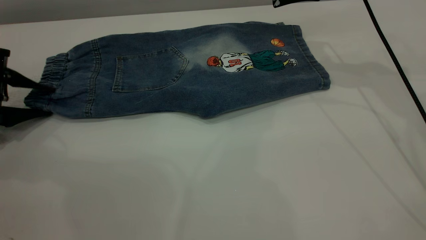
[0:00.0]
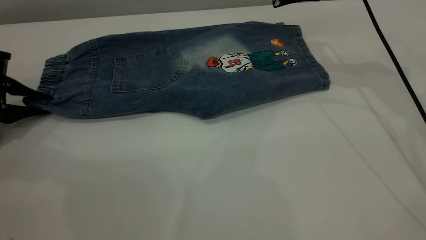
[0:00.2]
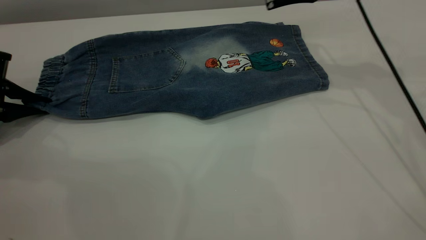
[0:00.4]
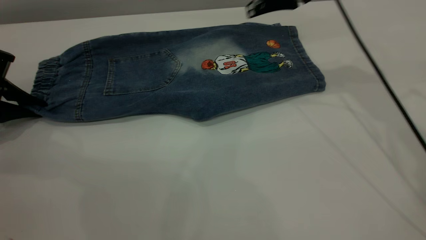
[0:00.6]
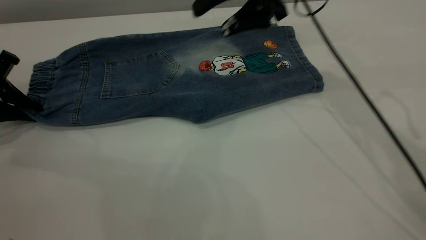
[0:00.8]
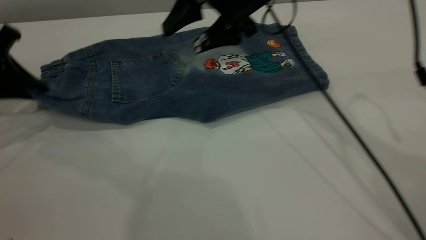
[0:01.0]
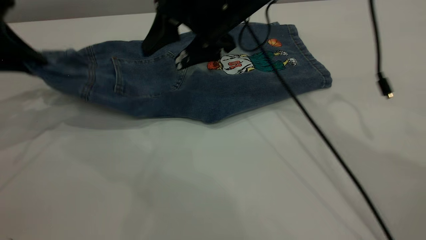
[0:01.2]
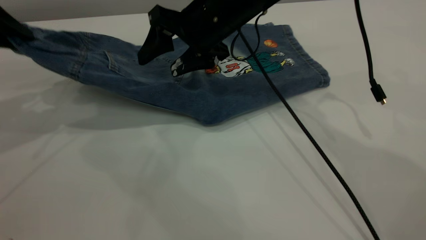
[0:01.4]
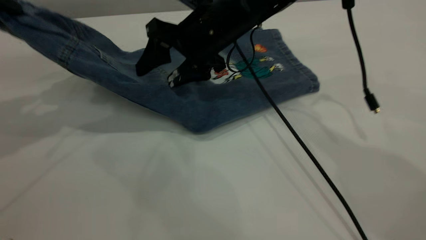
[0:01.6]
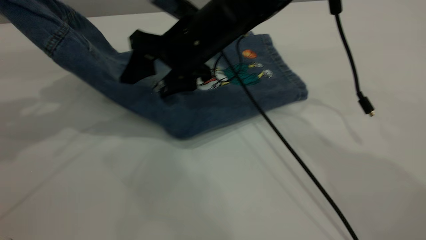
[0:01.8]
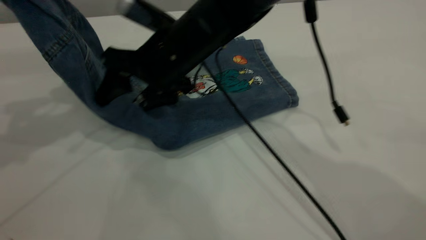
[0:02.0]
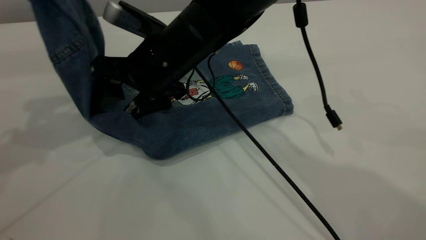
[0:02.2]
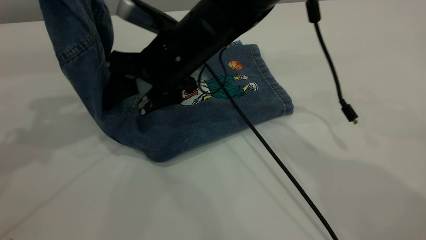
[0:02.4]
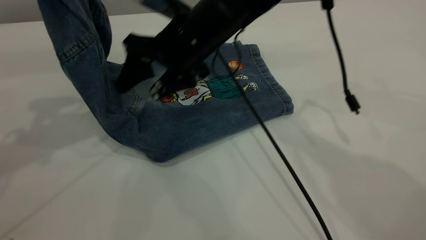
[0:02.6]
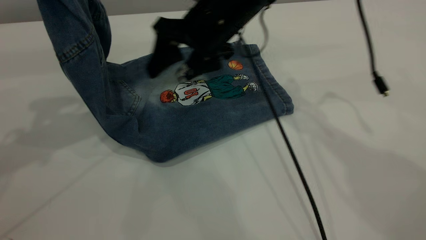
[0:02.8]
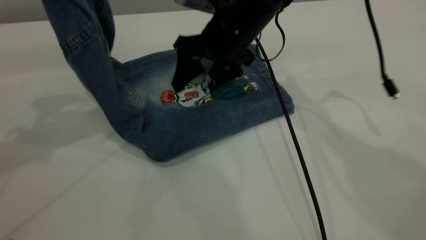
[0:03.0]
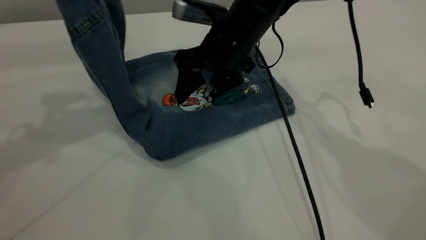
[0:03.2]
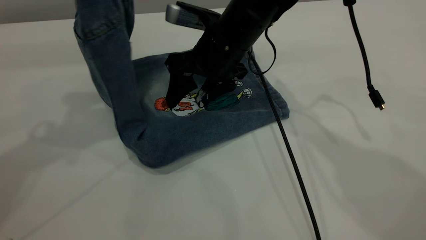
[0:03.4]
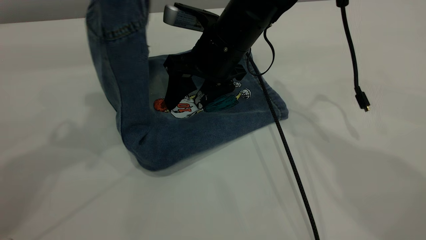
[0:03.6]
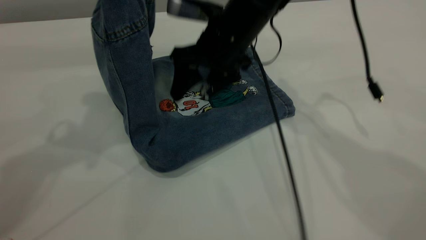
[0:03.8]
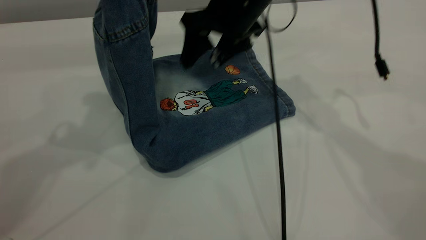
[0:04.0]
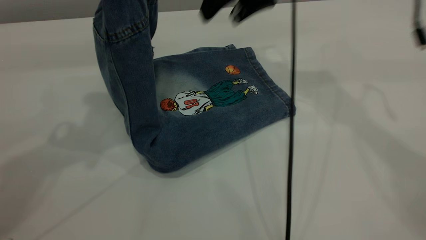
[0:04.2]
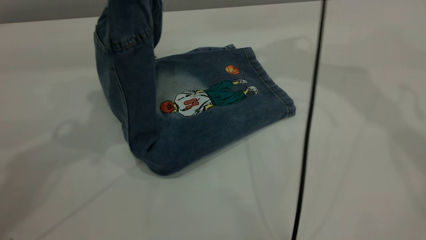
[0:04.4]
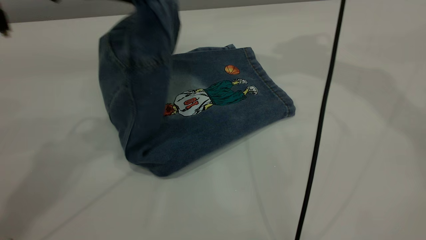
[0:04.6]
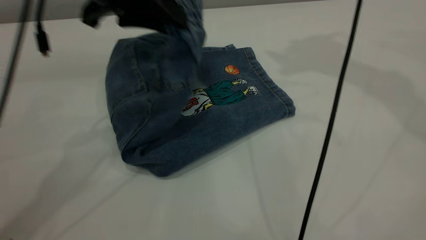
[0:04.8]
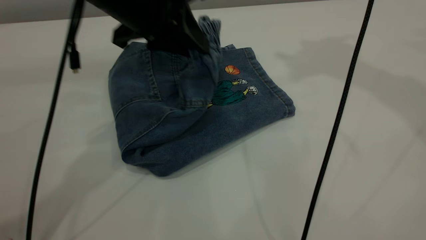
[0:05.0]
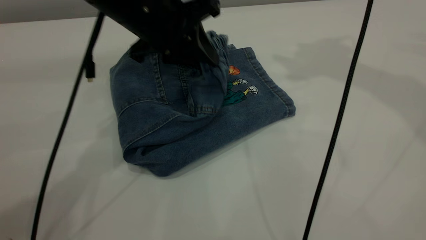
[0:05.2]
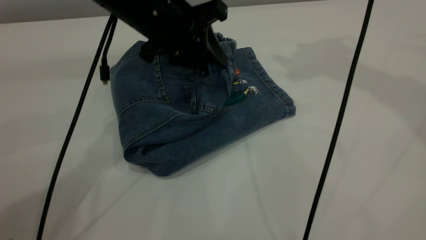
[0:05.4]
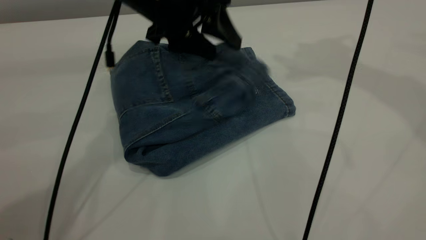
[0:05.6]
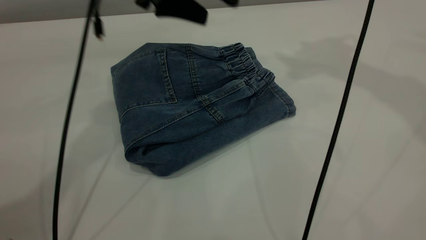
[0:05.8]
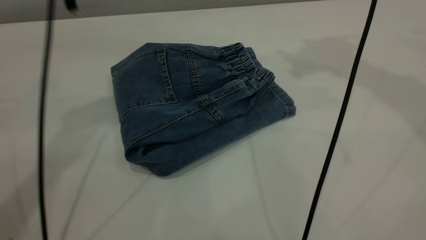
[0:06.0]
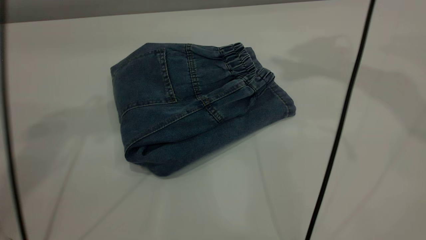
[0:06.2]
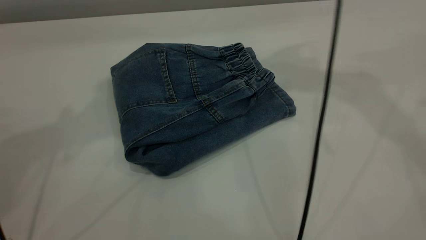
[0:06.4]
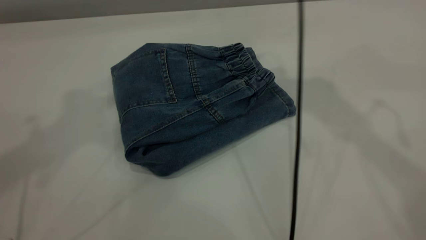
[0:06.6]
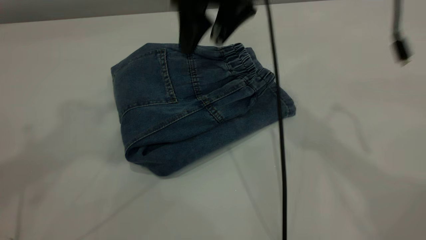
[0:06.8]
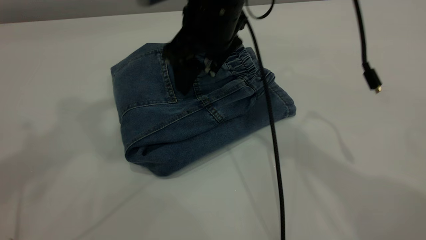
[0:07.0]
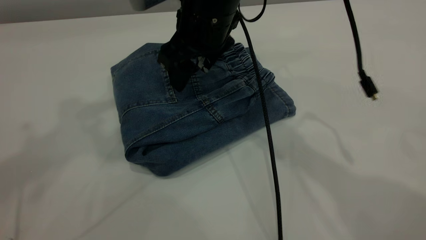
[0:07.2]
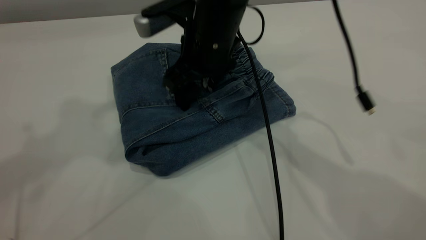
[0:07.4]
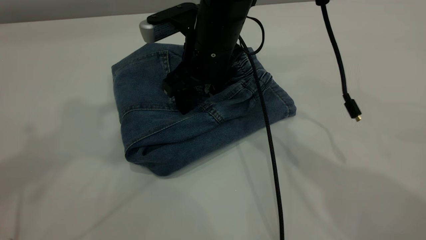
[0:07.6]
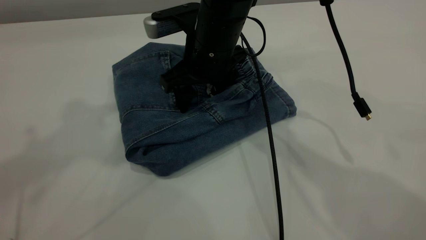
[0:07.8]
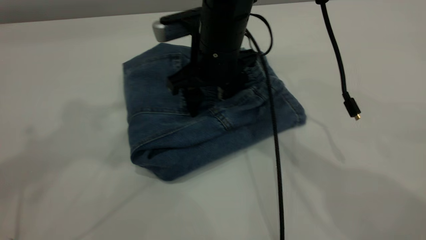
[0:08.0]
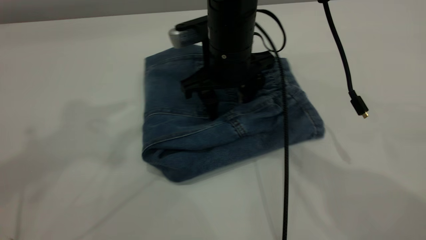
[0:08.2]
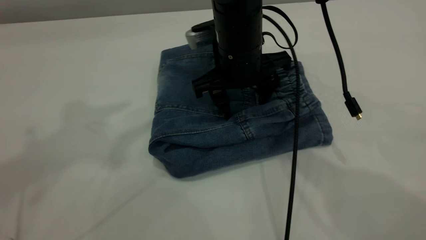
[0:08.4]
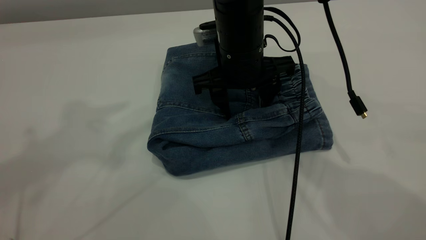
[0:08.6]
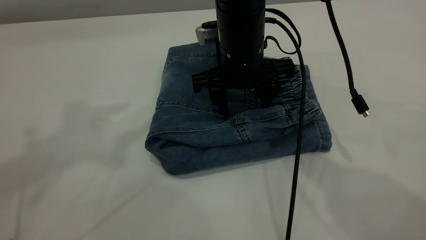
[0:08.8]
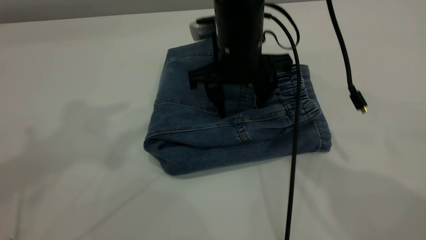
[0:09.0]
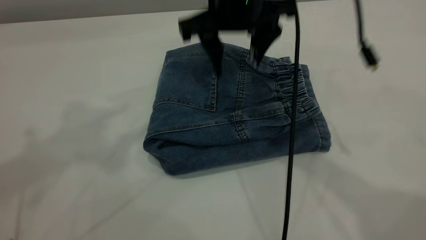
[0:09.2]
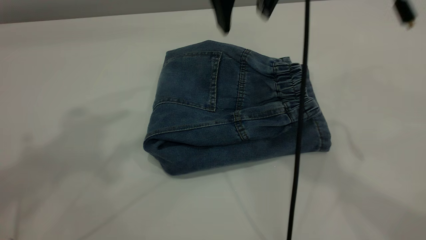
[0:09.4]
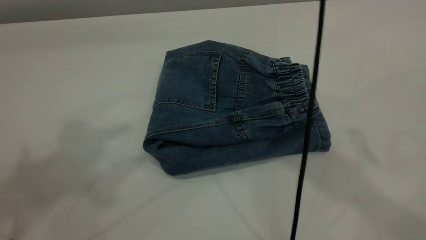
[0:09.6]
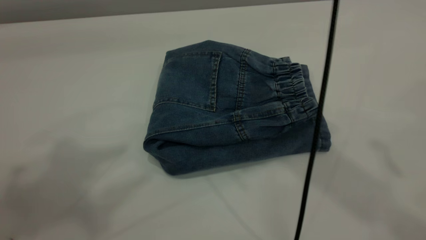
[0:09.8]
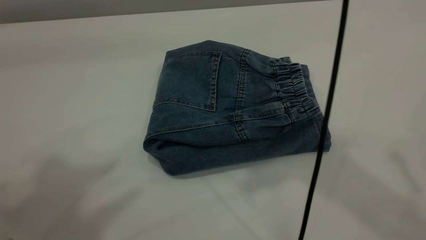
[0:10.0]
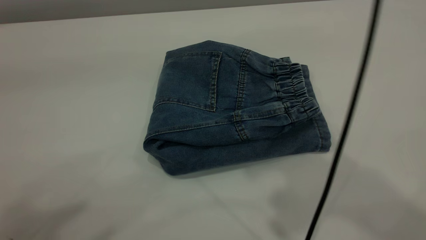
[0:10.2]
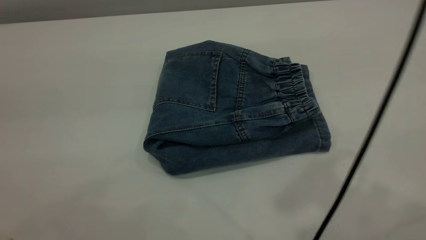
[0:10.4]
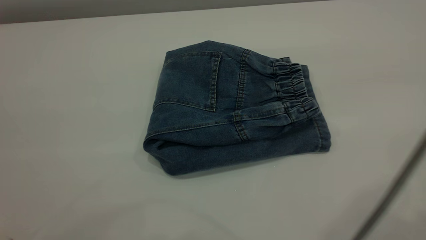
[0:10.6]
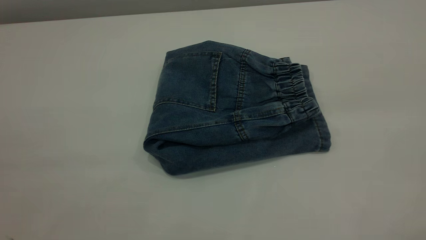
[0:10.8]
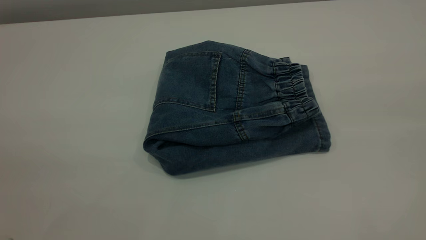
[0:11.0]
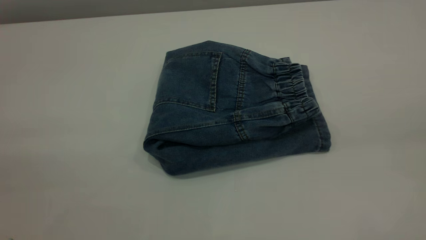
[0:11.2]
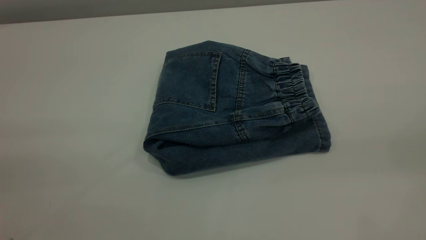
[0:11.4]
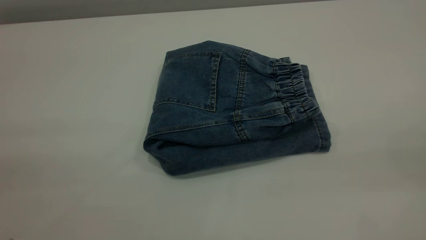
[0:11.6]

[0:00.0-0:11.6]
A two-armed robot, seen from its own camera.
Step, 0:00.0 to 0:06.0: Fold the pants from left to right.
0:00.0 to 0:01.4: The left gripper travels upward by about 20 cm, and closes its fingers. The right gripper heads to the left and downward, covering roughly 20 cm.
0:01.4 to 0:02.8: The right gripper moves about 5 cm to the left and comes back. Meanwhile the left gripper shifts roughly 10 cm to the right and upward.
0:02.8 to 0:04.4: The right gripper shifts approximately 20 cm upward and to the right. The left gripper goes about 10 cm to the right.
0:04.4 to 0:05.8: The right gripper moves upward and to the right, some 10 cm, while the left gripper is displaced to the right and forward by roughly 10 cm, and opens.
0:05.8 to 0:07.2: The right gripper goes some 30 cm downward and to the left. Meanwhile the left gripper shifts some 25 cm upward, to the left and backward.
0:07.2 to 0:08.8: The right gripper changes place by some 5 cm.
0:08.8 to 0:10.2: The left gripper travels backward by approximately 15 cm, while the right gripper shifts roughly 30 cm upward and backward.
0:10.2 to 0:11.6: The right gripper goes approximately 25 cm backward and to the right.

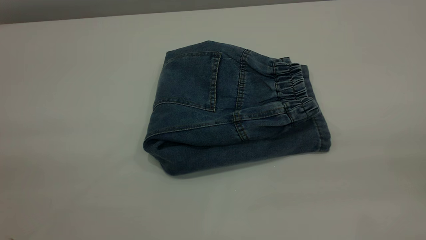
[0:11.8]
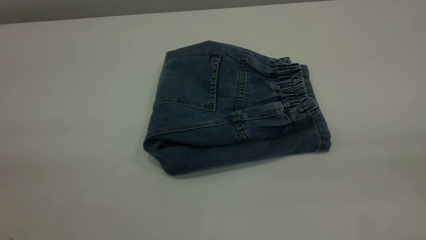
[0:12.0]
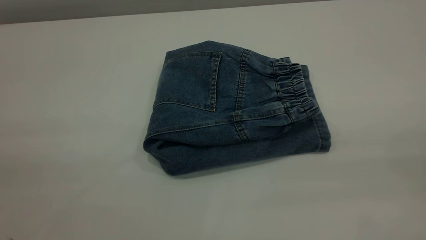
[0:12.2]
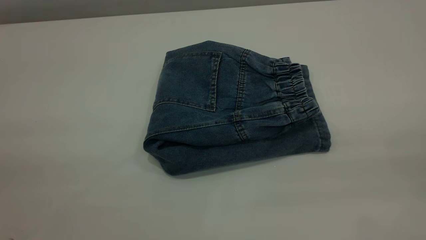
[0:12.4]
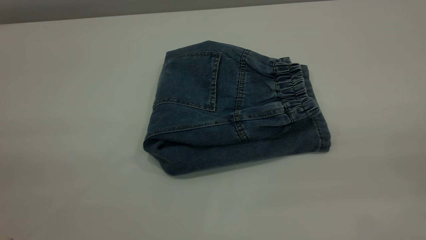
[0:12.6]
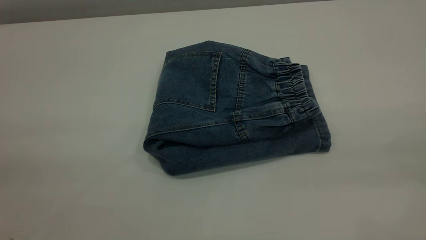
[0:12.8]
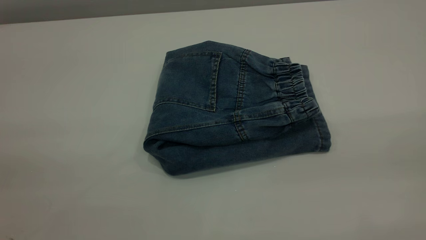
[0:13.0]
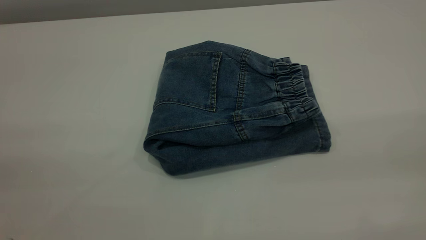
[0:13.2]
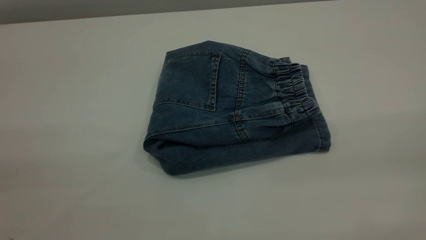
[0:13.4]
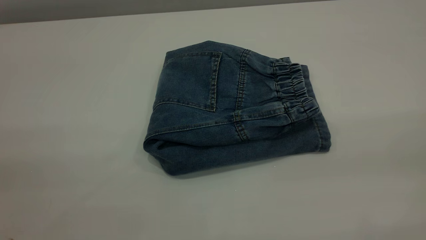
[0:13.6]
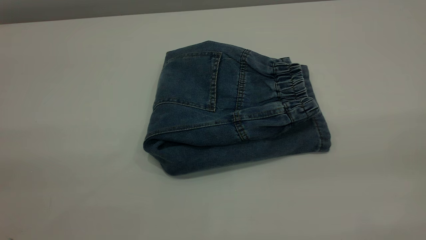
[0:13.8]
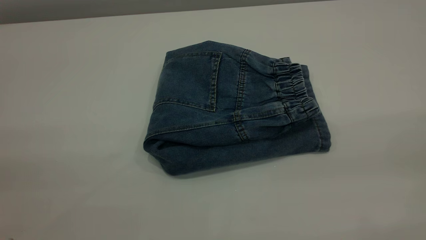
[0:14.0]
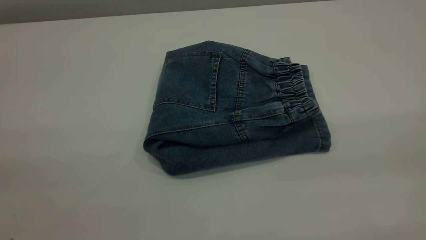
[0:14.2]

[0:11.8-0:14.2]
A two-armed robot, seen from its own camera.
0:13.0 to 0:14.2: Both grippers stay about where they are.
